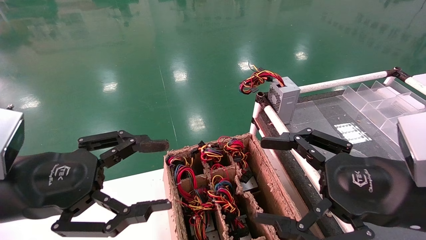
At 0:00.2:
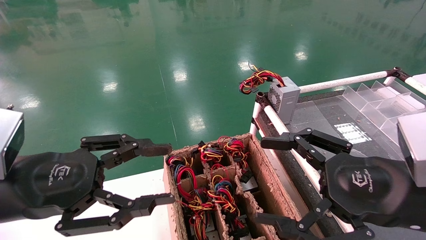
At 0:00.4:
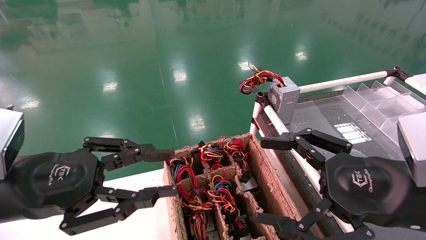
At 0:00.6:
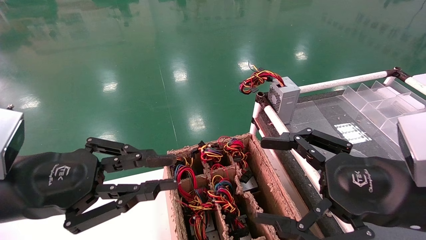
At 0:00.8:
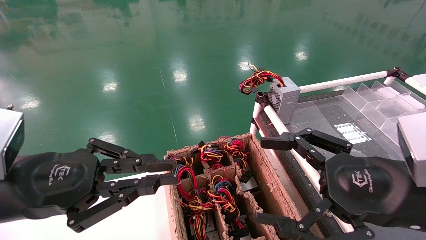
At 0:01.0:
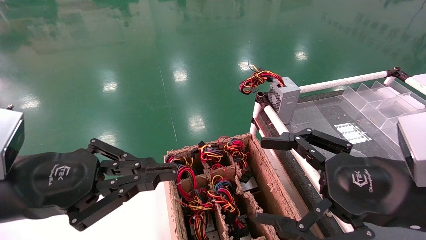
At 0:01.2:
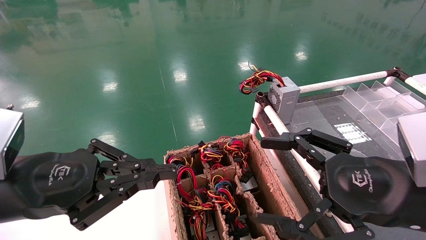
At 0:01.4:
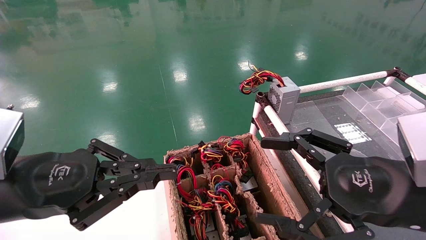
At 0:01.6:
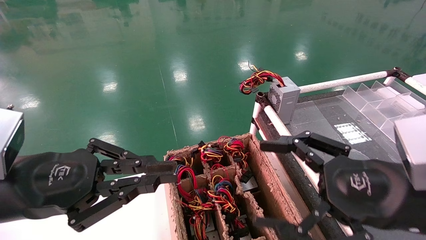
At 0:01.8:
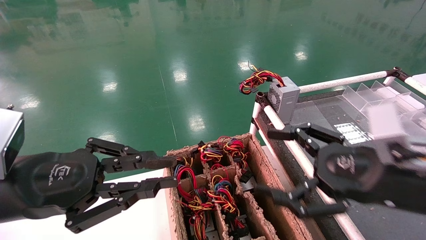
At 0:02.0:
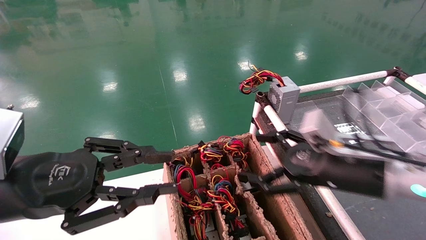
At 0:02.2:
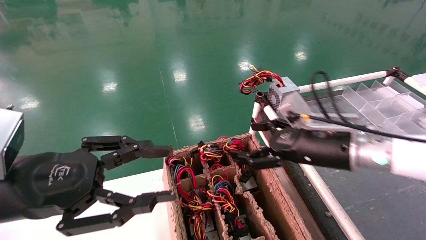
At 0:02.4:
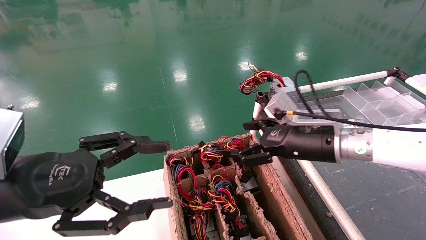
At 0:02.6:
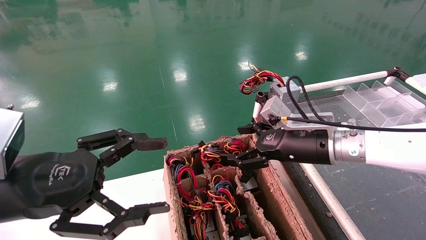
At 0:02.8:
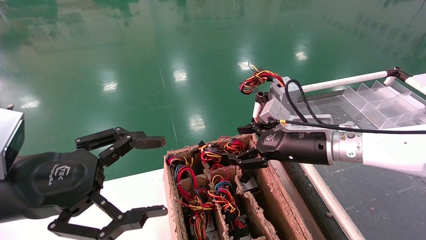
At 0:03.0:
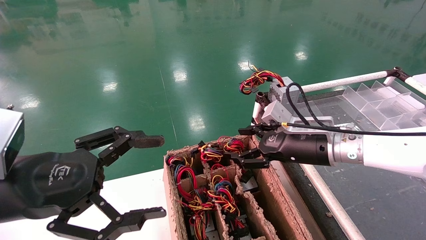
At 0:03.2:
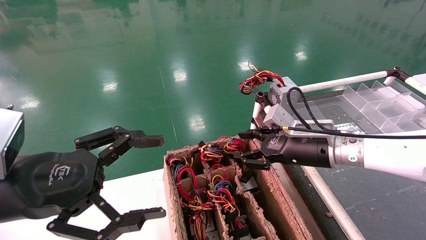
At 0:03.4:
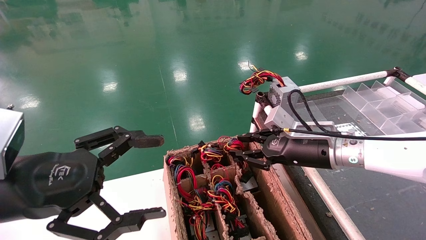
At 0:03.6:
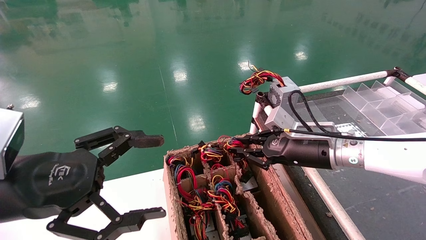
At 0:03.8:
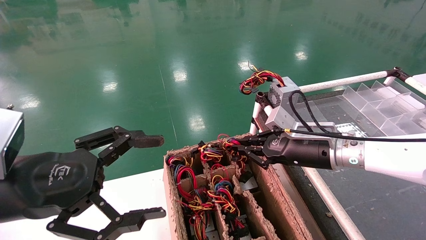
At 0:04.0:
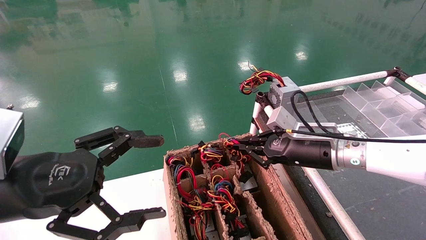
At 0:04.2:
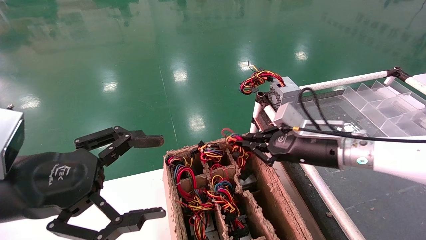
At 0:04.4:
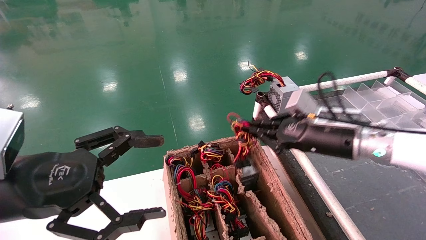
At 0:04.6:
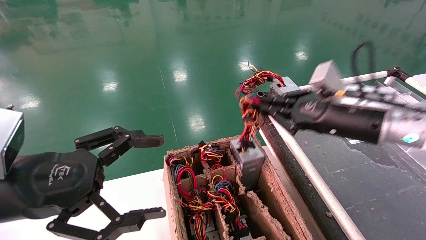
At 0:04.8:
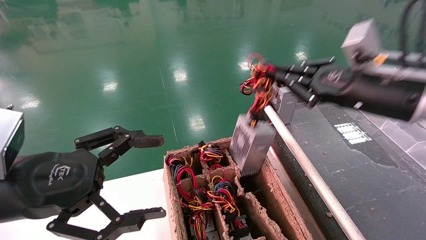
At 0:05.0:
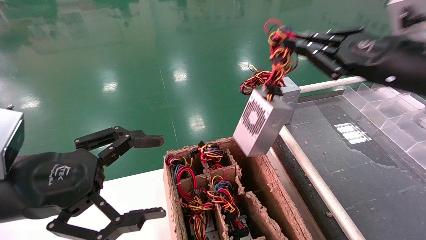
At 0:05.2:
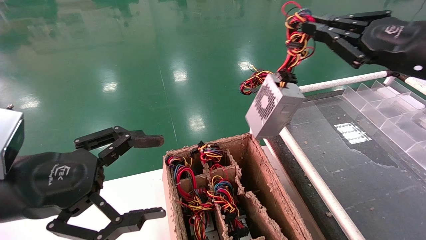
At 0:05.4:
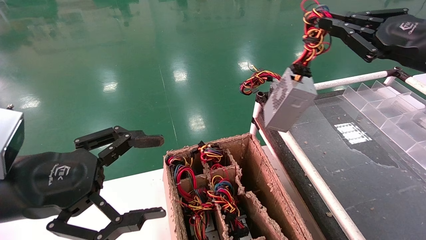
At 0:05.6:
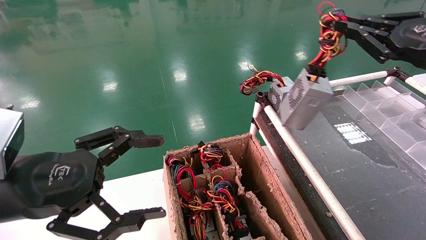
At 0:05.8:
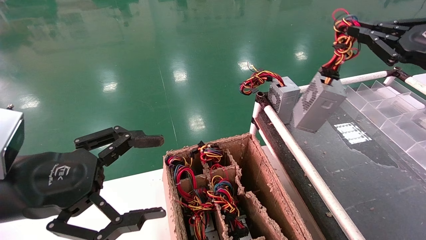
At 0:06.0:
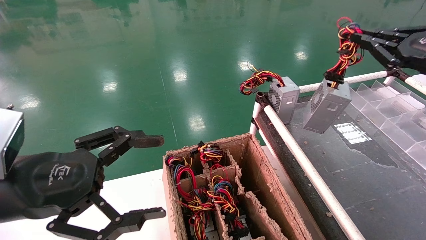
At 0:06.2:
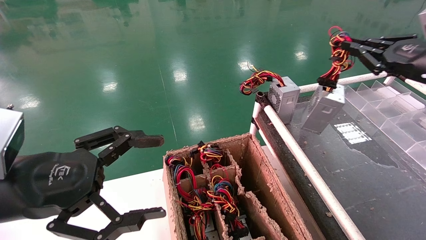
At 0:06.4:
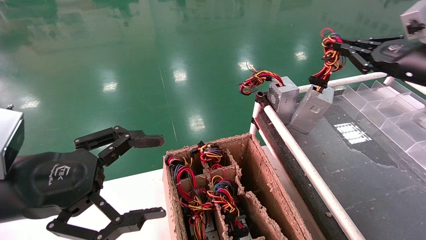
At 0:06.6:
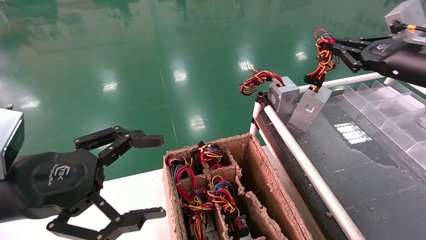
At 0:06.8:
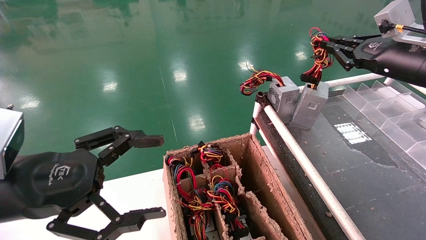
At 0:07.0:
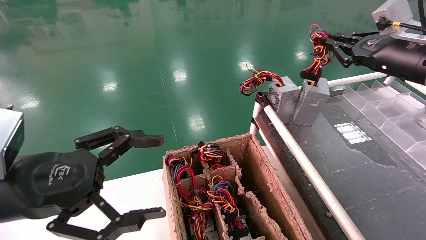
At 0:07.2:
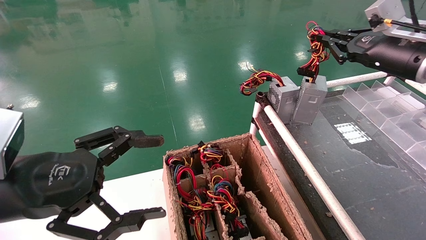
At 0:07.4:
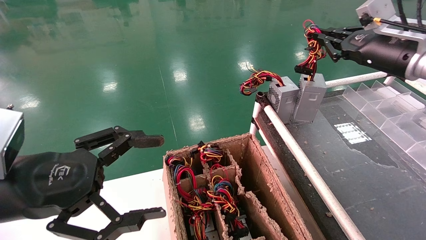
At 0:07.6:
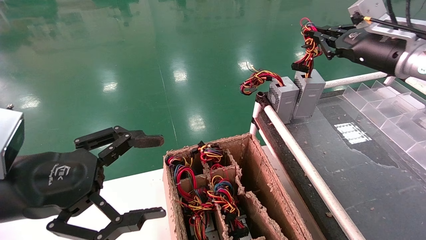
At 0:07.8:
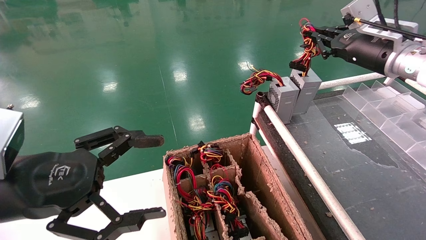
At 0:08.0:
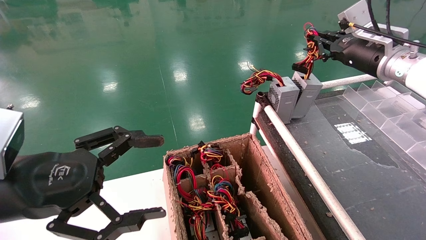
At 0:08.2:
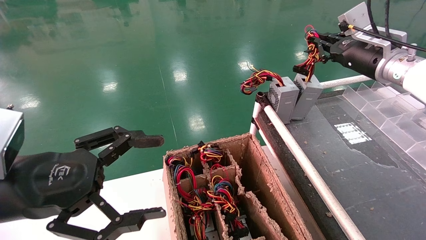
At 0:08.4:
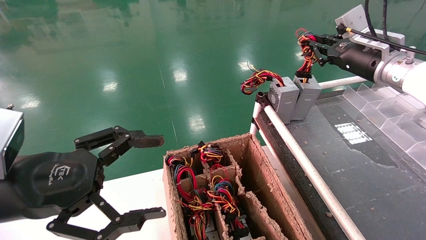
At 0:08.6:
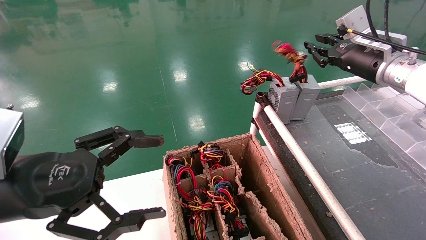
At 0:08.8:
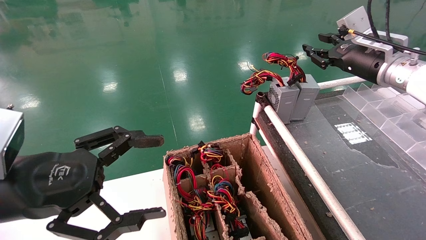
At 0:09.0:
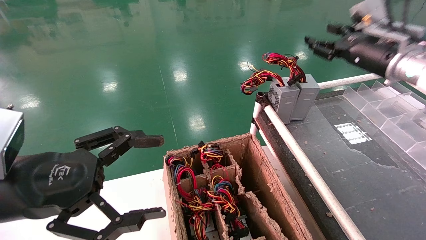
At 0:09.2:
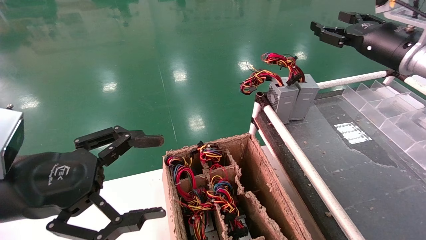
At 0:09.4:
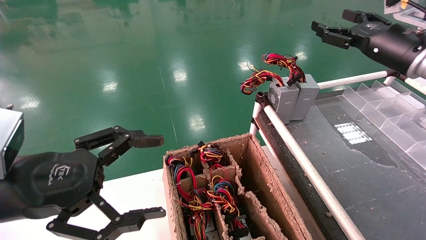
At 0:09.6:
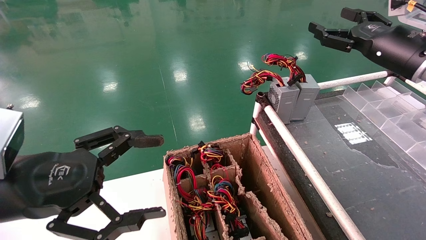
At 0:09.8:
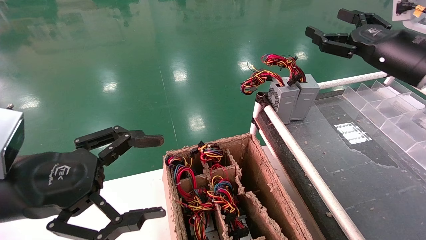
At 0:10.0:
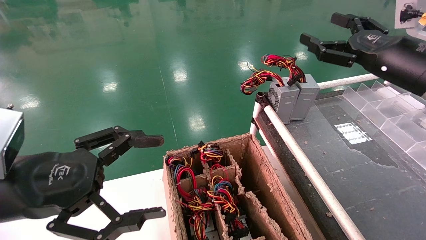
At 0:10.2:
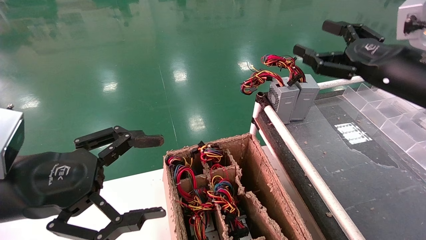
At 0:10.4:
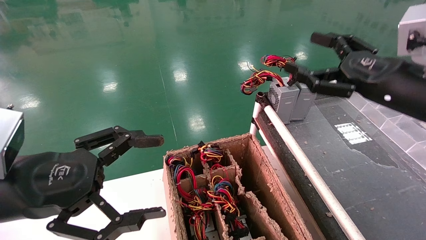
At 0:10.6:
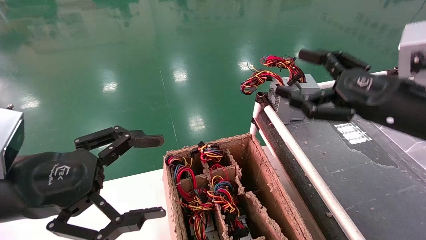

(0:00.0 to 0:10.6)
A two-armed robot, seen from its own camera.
Step, 0:01.2 - 0:04.0: Grab and lift the power supply from the large box.
Step, 0:04.2 - 0:08.8: Place the power supply on the operating table.
0:00.0 - 0:01.6: The left gripper closes its fingers.
0:01.6 - 0:03.0: The right gripper travels forward by approximately 15 cm; the left gripper opens.
0:03.0 - 0:04.6: The right gripper goes about 10 cm upward and to the right, and closes up.
0:04.6 - 0:06.0: The right gripper moves to the right and upward, approximately 15 cm.
0:06.0 - 0:07.6: The right gripper moves forward and to the left, approximately 10 cm.
0:07.6 - 0:09.0: The right gripper opens.
0:09.0 - 0:10.6: The right gripper moves backward, roughly 15 cm, and opens its fingers.
